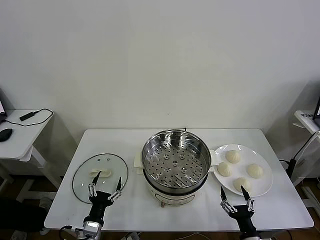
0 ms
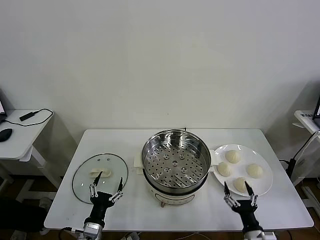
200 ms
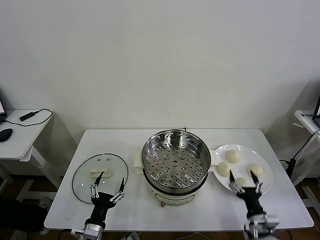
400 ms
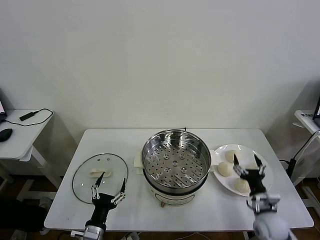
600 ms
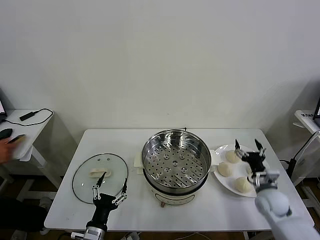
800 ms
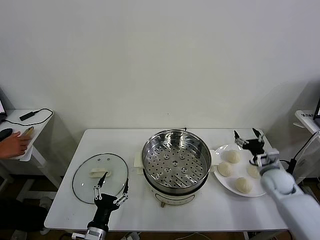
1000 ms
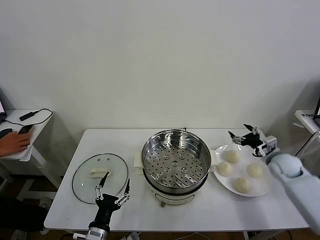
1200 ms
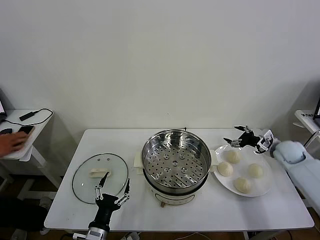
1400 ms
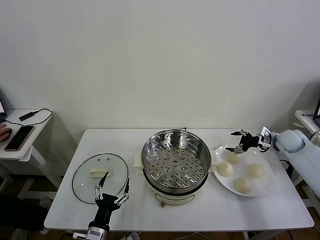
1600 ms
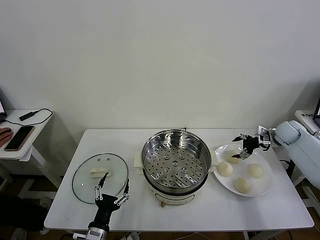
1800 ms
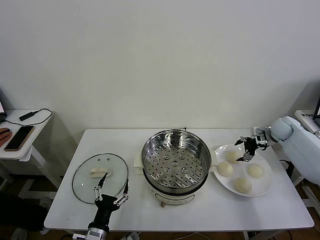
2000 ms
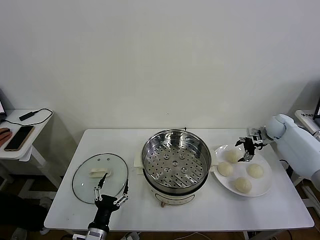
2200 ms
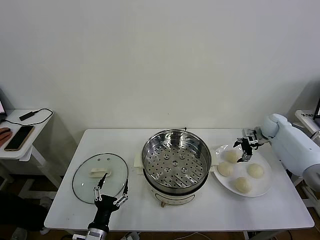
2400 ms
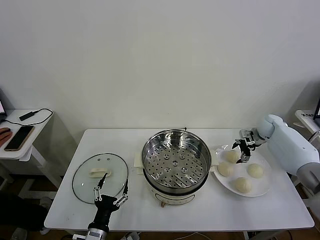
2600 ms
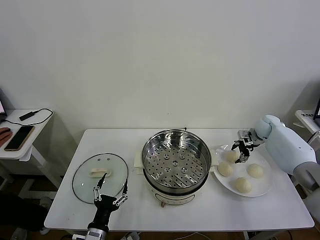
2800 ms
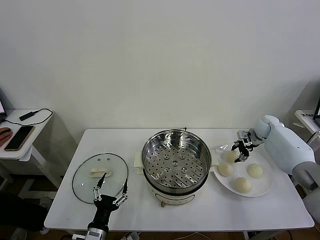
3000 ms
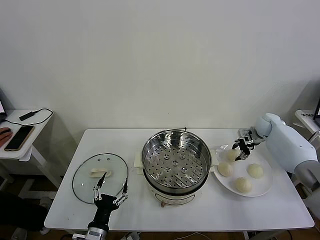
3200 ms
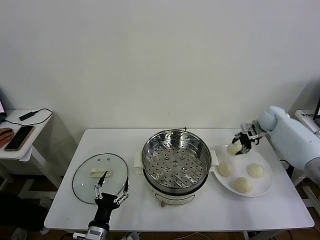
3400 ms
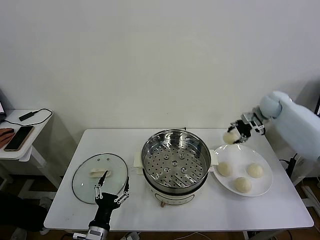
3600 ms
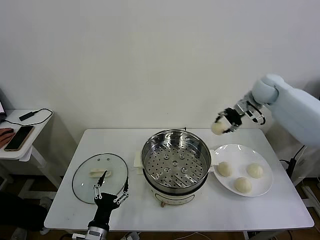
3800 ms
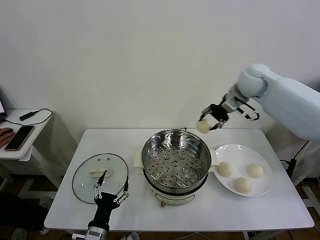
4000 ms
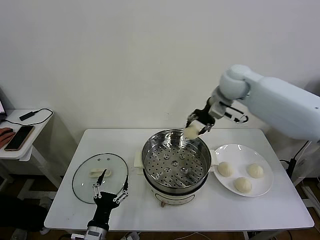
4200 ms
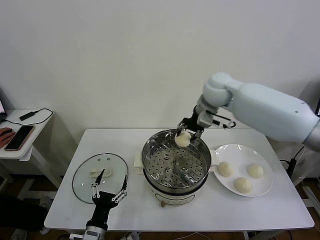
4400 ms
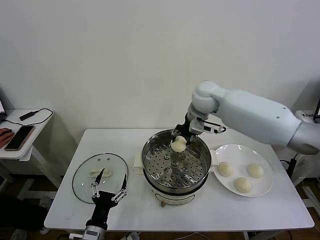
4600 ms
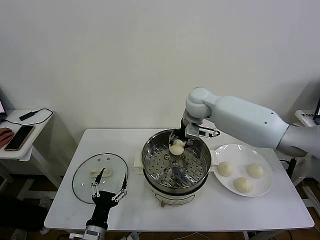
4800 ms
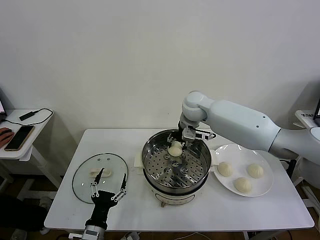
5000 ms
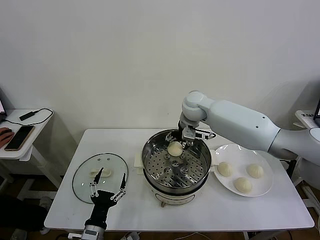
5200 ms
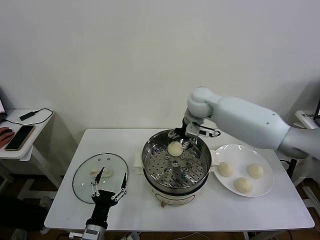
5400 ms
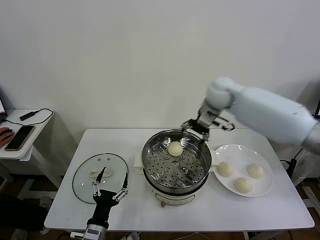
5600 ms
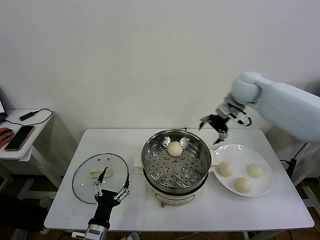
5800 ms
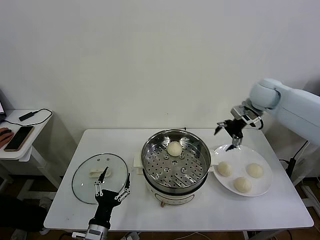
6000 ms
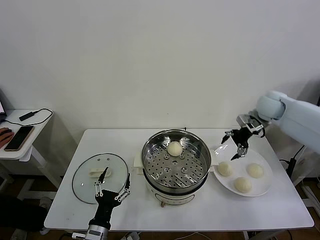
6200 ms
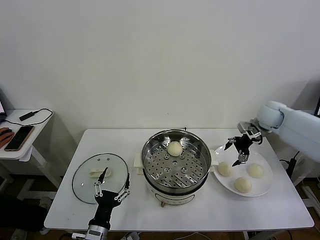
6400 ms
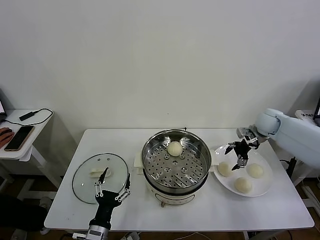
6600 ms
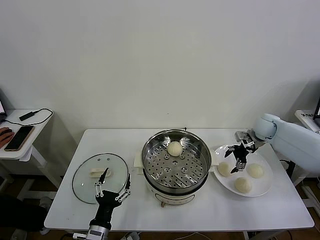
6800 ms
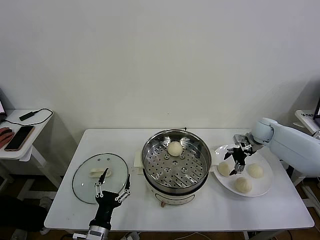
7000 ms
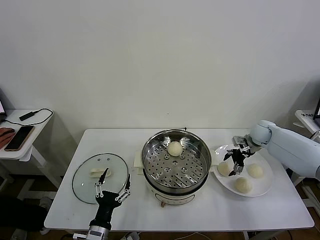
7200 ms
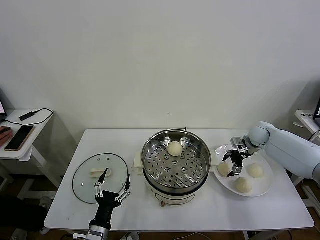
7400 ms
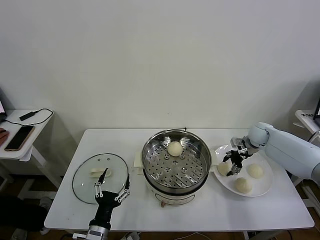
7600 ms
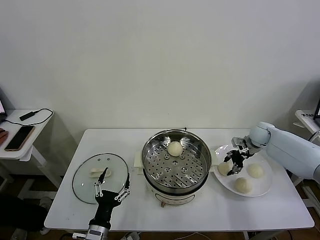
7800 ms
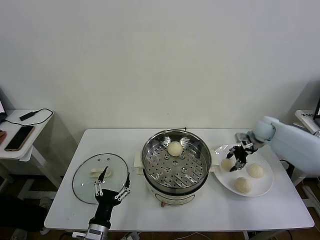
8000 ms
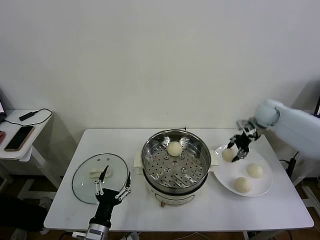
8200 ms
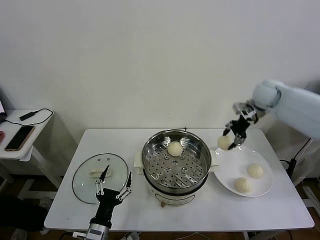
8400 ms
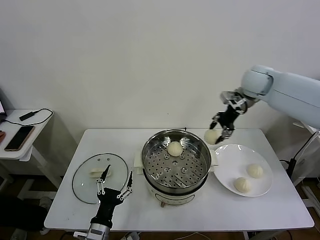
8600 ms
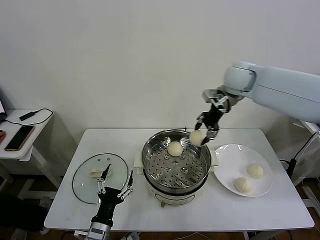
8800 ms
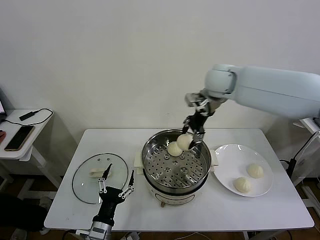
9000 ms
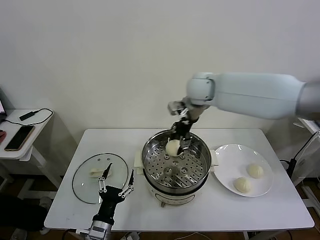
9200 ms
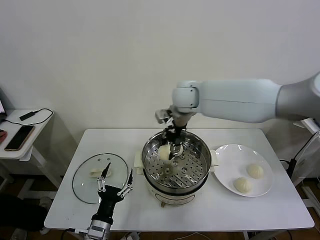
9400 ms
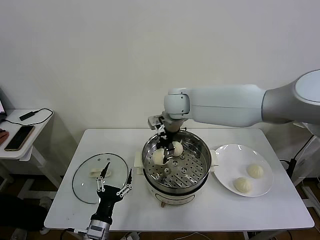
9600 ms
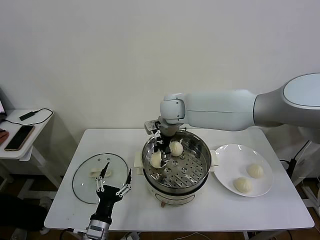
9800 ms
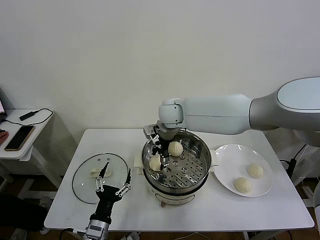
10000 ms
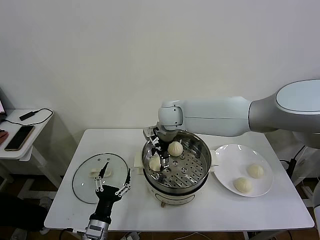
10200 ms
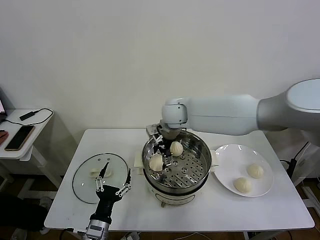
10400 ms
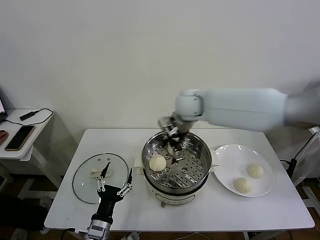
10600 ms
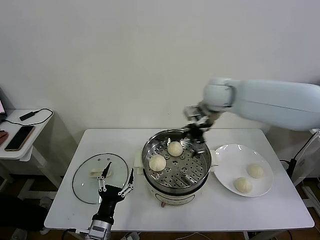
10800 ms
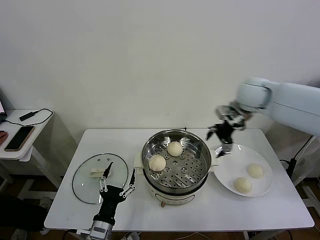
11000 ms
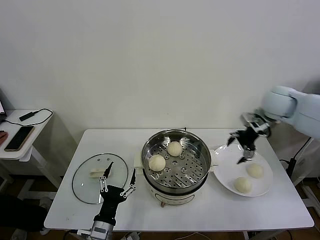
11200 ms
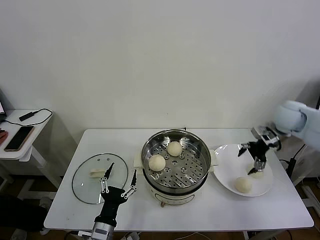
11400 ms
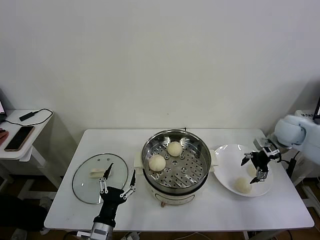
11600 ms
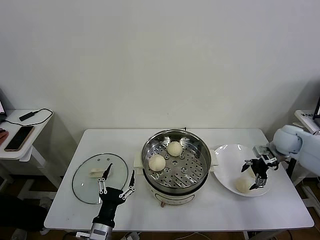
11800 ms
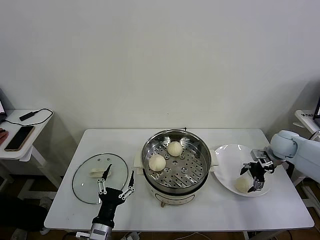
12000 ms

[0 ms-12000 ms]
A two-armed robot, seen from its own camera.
Task of the whole recording: take steamed baozi put them in steamer then cover it.
Step, 0 ms to 3000 ms: Grasp the baozi in the plate with right gripper.
Step, 3200 ms to 5200 ms: Place the baozi on the steamer with right gripper.
Step, 5400 ms to 7600 ms: Grasp the baozi in the plate with right gripper.
Step, 7800 ms to 10000 ms: Place the baozi on the steamer with right gripper.
1600 ms to 3000 ms: The right gripper is displaced forward by approximately 5 cm, and closes.
3000 ms to 4400 ms: The right gripper moves to the left and upward, roughly 35 cm.
4400 ms to 6000 ms: The right gripper shifts approximately 20 cm to the right, and opens.
6000 ms to 7600 ms: The right gripper heads downward, covering some 20 cm, and closes.
7600 ms to 9000 ms: The right gripper goes about 35 cm to the left and upward.
9000 ms to 10400 ms: The right gripper travels to the left and downward by roughly 15 cm, and opens.
10400 ms to 12000 ms: The right gripper is displaced to the right by roughly 40 cm.

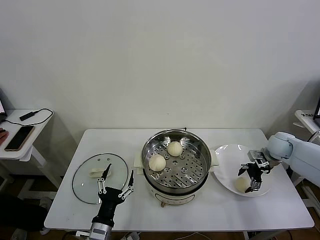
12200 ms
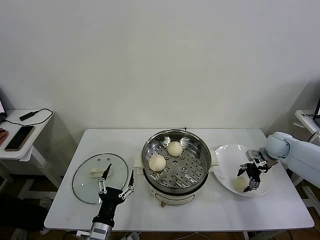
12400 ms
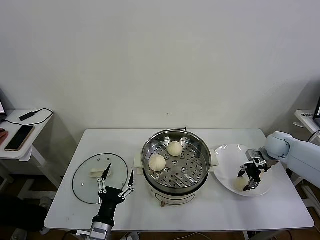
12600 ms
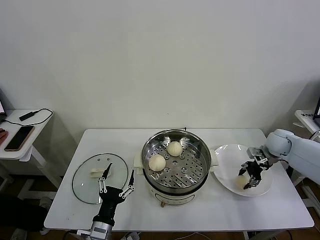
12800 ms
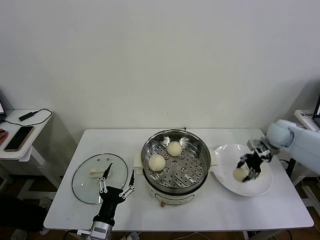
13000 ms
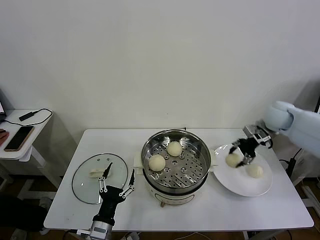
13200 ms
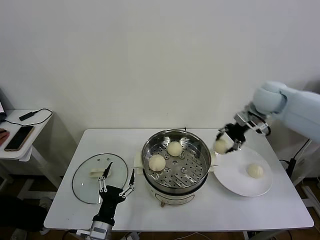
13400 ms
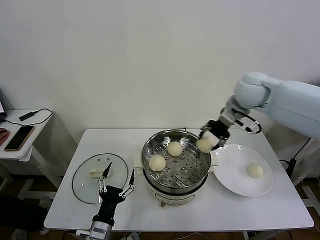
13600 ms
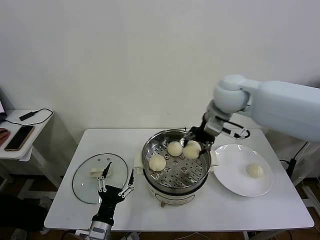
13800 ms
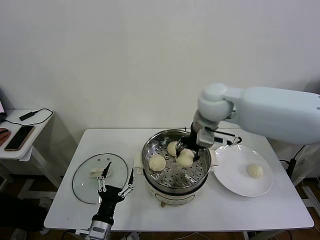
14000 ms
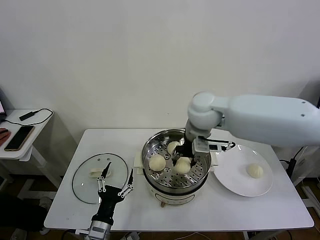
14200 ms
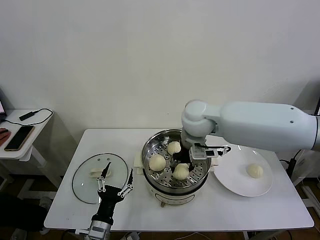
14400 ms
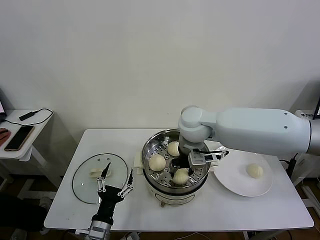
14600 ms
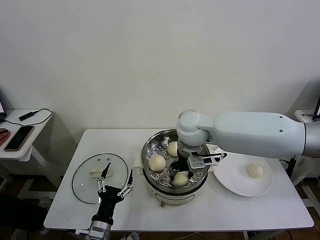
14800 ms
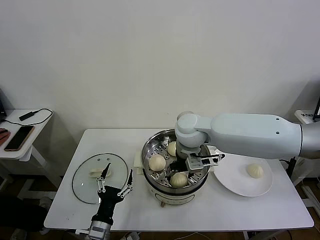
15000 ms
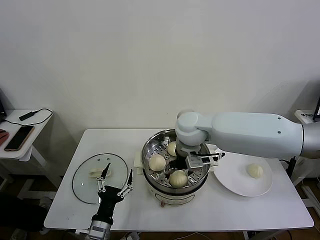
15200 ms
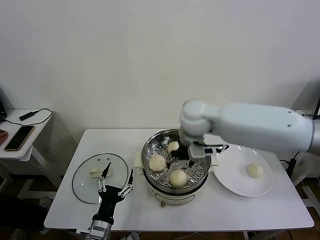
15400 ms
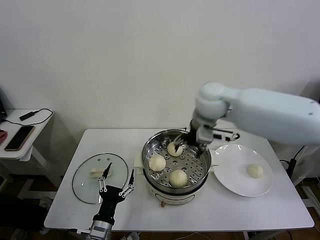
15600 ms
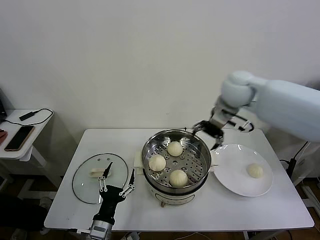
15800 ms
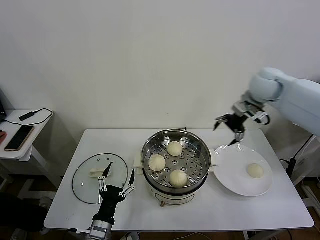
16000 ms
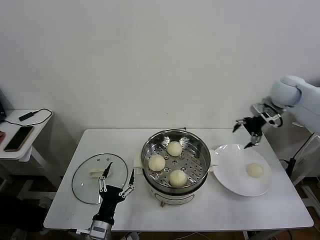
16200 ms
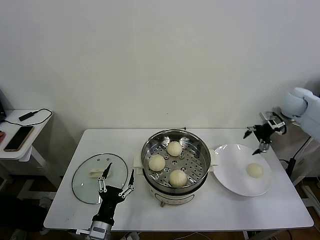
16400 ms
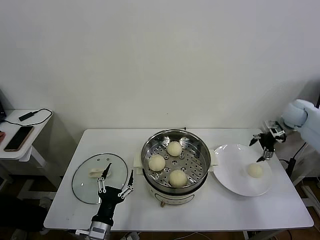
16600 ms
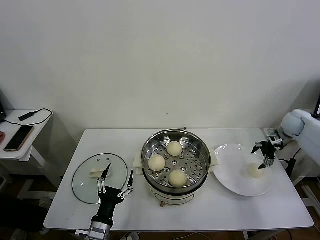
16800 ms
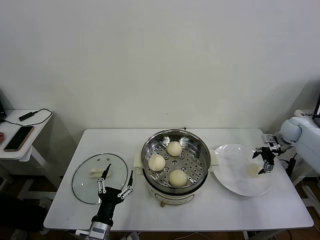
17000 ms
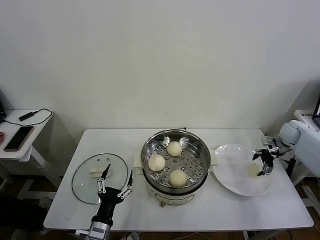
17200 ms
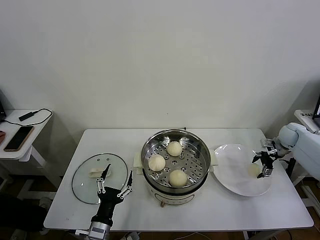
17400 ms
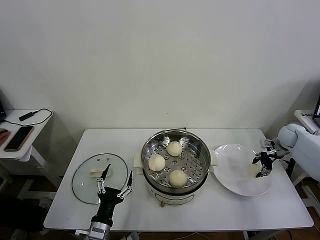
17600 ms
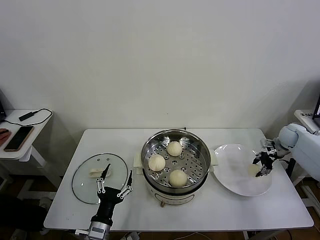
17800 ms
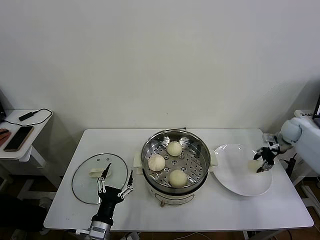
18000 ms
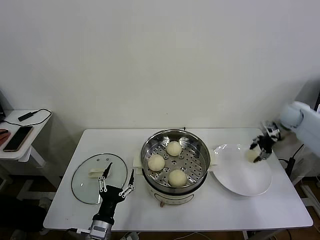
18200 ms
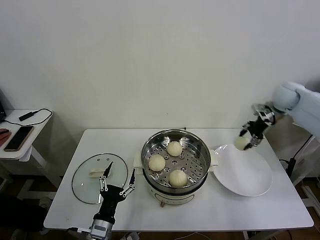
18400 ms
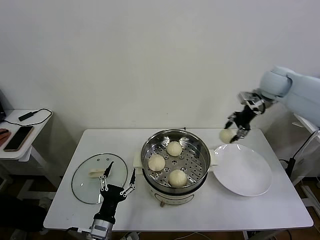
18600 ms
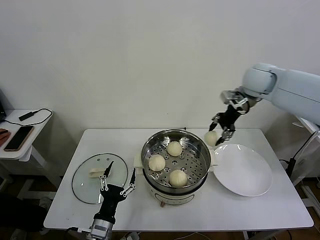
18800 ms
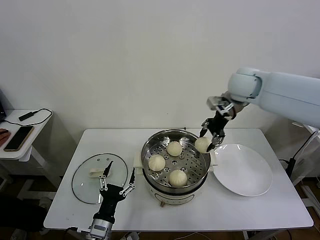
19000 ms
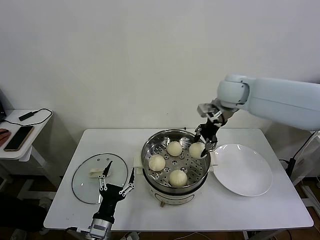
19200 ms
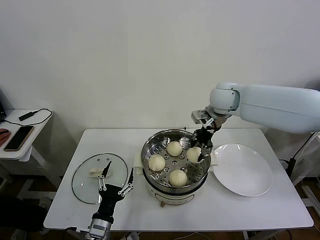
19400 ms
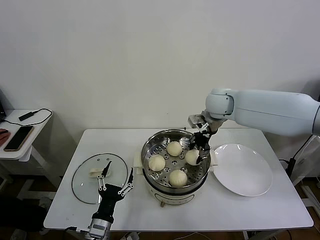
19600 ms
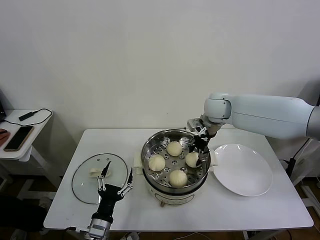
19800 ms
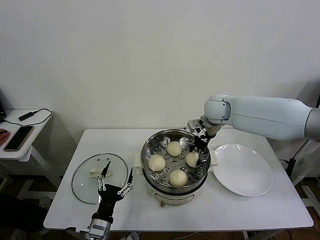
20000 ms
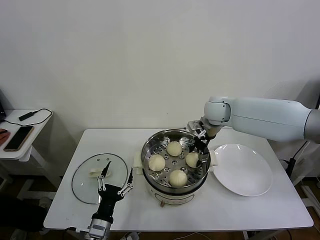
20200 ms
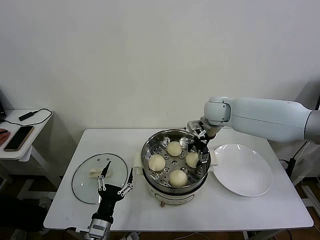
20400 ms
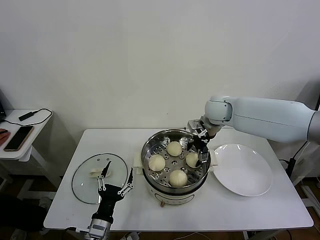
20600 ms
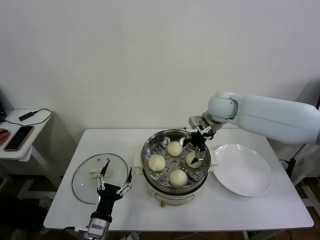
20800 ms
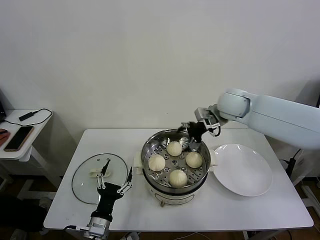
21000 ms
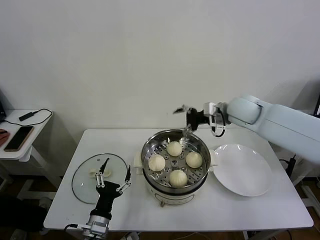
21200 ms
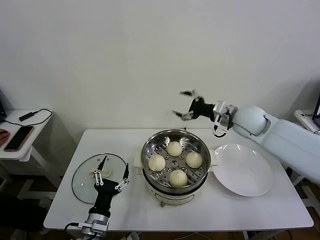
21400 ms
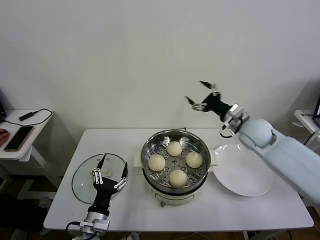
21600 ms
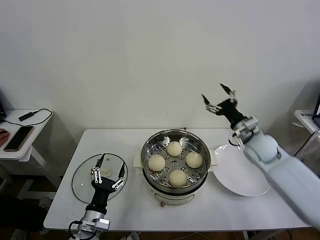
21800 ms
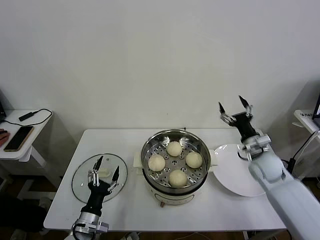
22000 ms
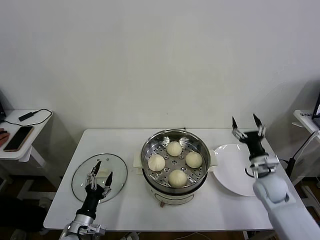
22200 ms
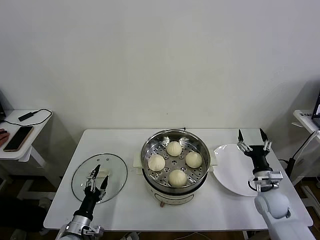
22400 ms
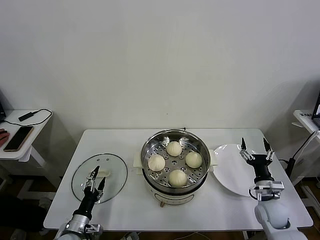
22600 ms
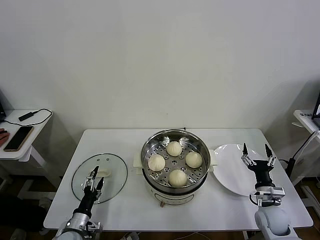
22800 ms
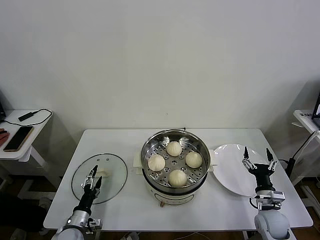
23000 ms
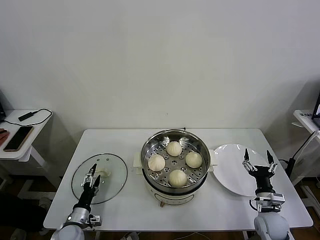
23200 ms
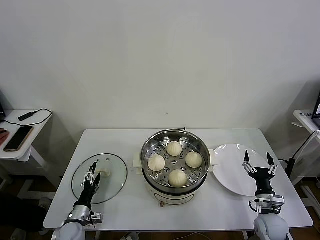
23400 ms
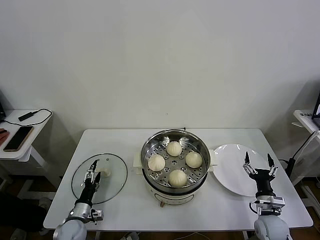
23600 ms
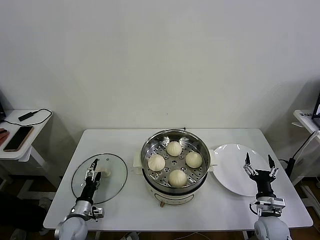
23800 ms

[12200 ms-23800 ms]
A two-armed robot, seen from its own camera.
Task of the whole recording: take steamed baozi put them in steamer then cover it.
Step, 12800 ms to 15000 ms: Place the baozi on the steamer with right gripper.
Step, 15200 ms to 17800 ms: Grasp the baozi in the plate with right gripper.
Step, 18000 ms to 20400 ms: Place the baozi on the steamer with right gripper.
12200 ms to 13600 ms: The right gripper goes approximately 30 cm upward and to the left, and closes its fingers.
13600 ms to 15000 ms: The right gripper travels to the left, downward and backward by some 20 cm, and opens up.
15000 ms to 16600 ms: The right gripper moves to the right, about 40 cm.
16600 ms to 18000 ms: The right gripper heads downward, covering approximately 5 cm, and closes.
18000 ms to 19400 ms: The right gripper travels to the left and upward by roughly 35 cm.
19400 ms to 21000 ms: The right gripper opens.
21000 ms to 22400 ms: The right gripper travels downward, backward and to the right by about 35 cm, while the left gripper moves to the left and downward, roughly 10 cm.
22400 ms to 23800 ms: The left gripper is displaced forward and downward by some 10 cm. The right gripper shifts roughly 10 cm backward and downward.
